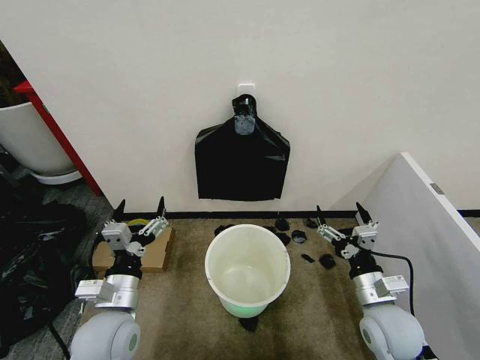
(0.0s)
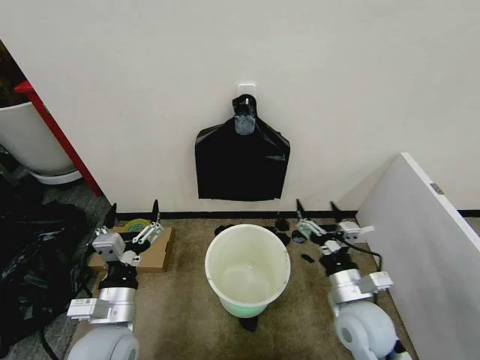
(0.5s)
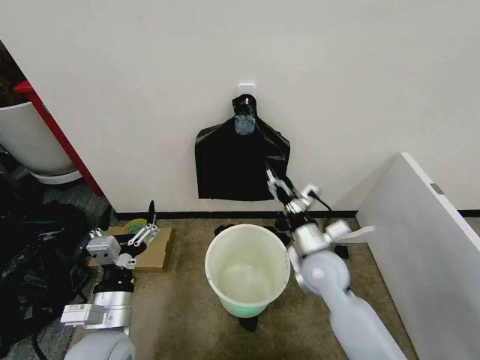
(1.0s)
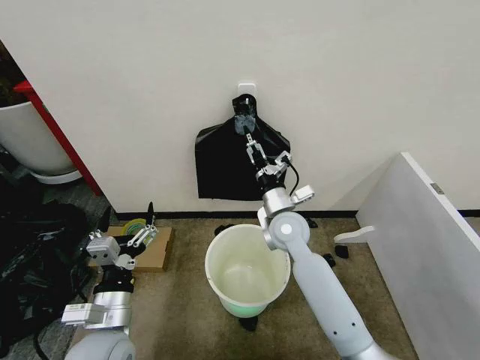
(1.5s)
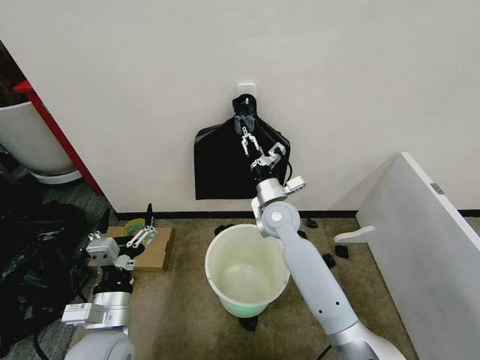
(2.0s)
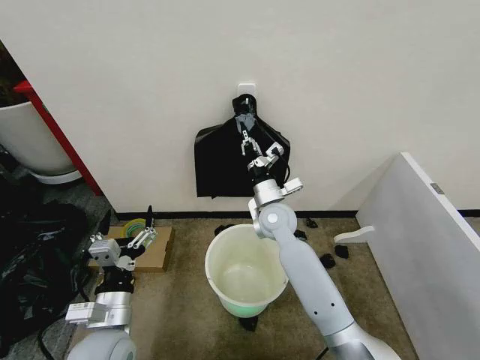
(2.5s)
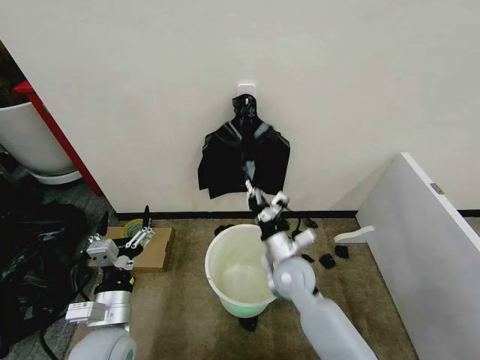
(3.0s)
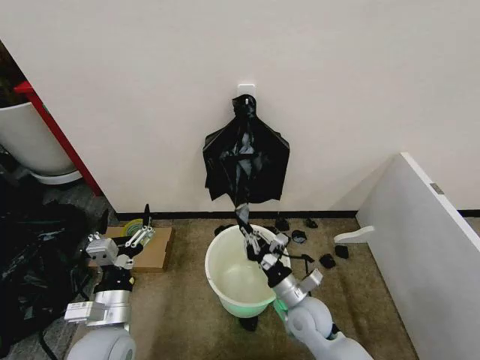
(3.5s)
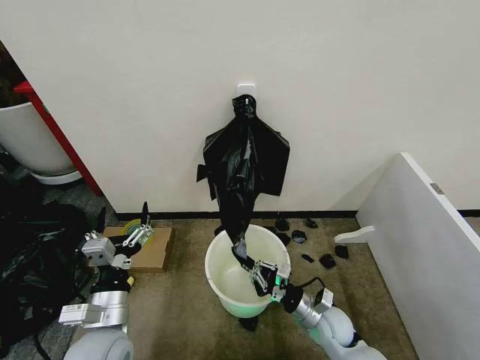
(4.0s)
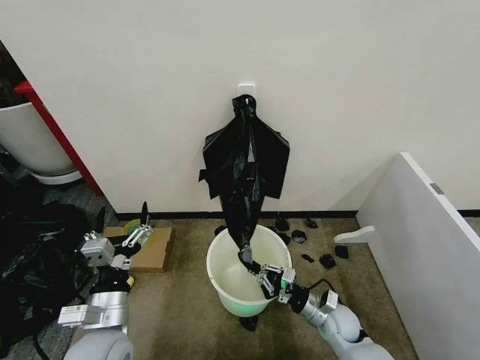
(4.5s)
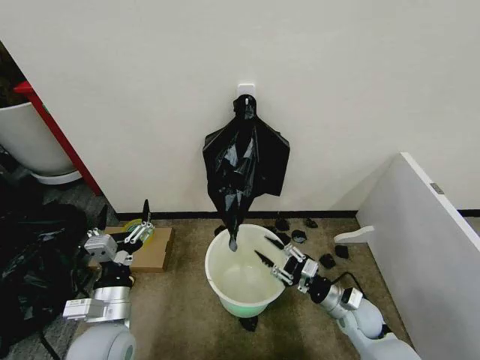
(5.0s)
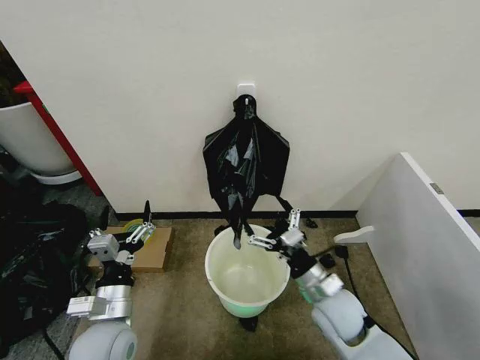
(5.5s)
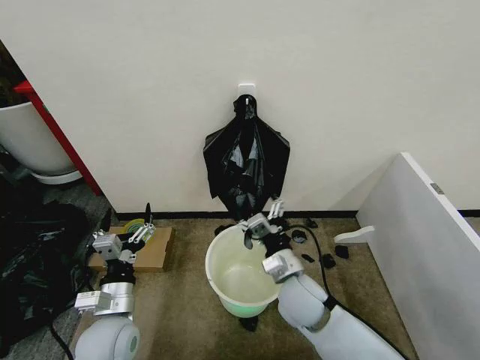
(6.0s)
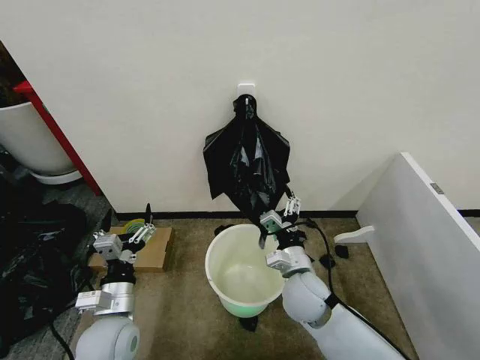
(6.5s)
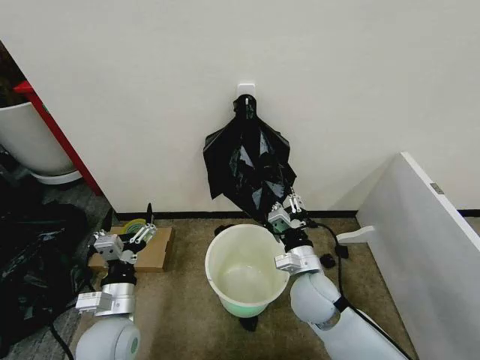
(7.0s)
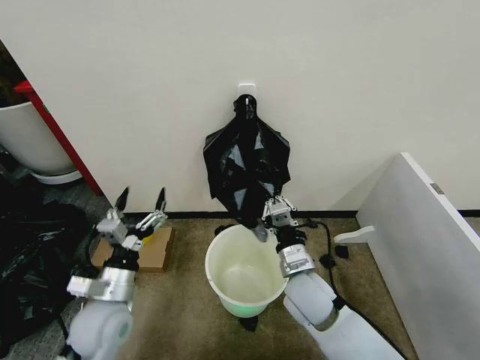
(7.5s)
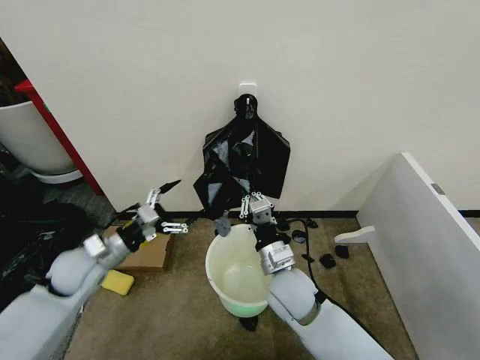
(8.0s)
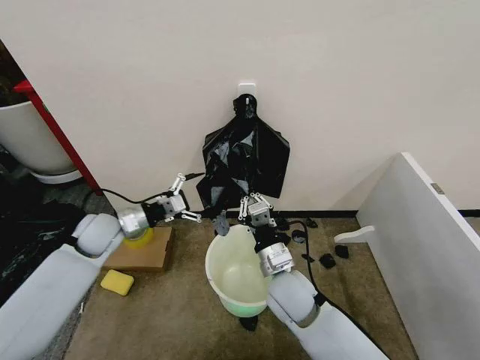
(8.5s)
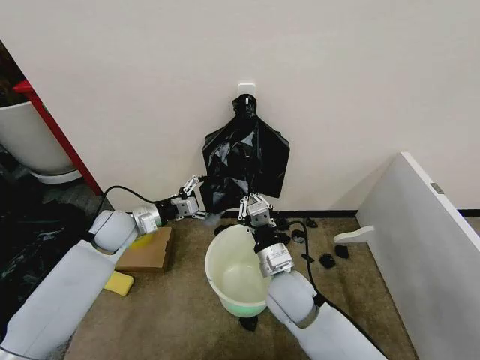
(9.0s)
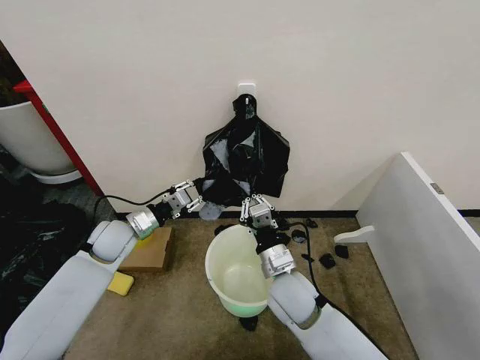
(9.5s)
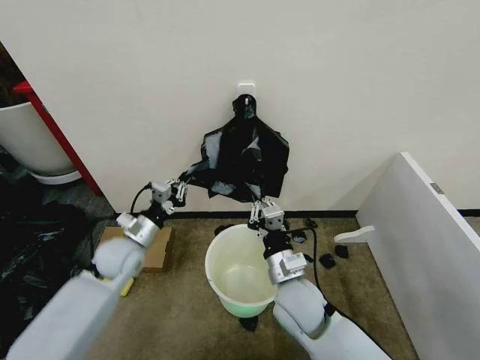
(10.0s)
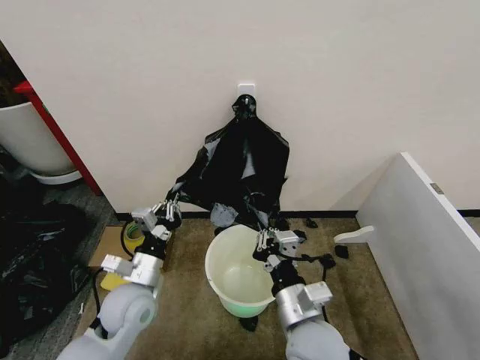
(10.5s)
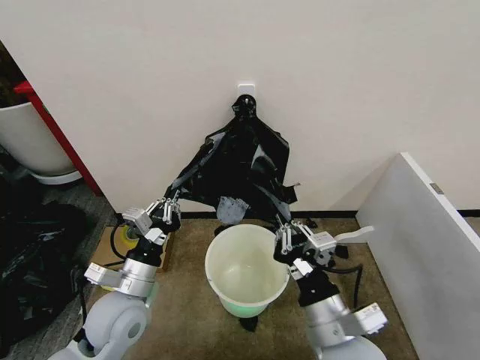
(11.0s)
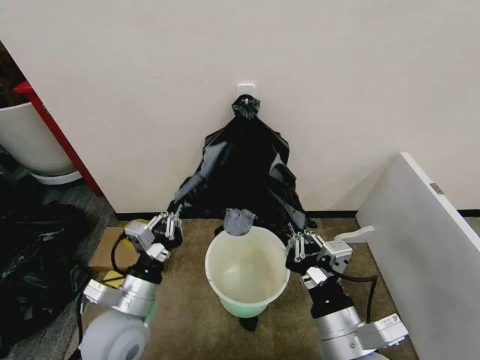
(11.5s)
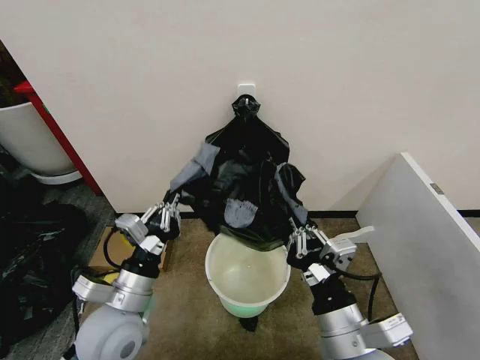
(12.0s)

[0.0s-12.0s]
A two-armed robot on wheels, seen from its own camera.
Task of the whole recording: Place the garbage bag over the trash bin.
2.0s to 4.0s: The right gripper goes some 30 cm downward, backward and to the right, and closes its fingers.
4.0s to 6.0s: The right gripper travels upward and to the left by about 15 cm, and opens up.
6.0s to 8.0s: The right gripper closes its fingers. The left gripper goes some 15 cm forward and to the left.
8.0s to 10.0s: The left gripper heads to the right, covering about 5 cm, and closes up.
10.0s to 12.0s: The right gripper moves backward, upward and to the right, roughly 15 cm. The left gripper shifts about 20 cm backward and to the right.

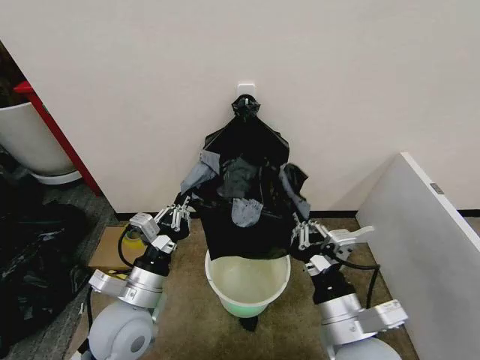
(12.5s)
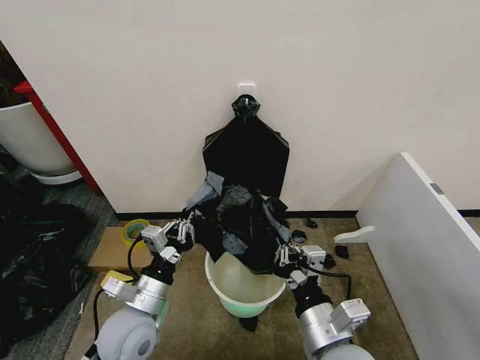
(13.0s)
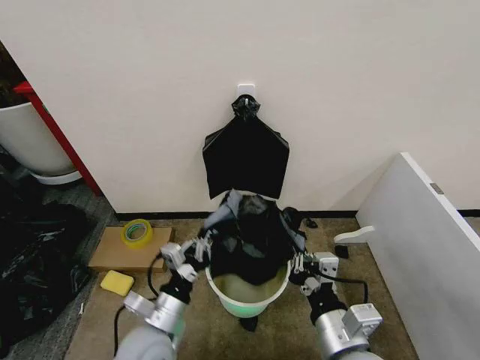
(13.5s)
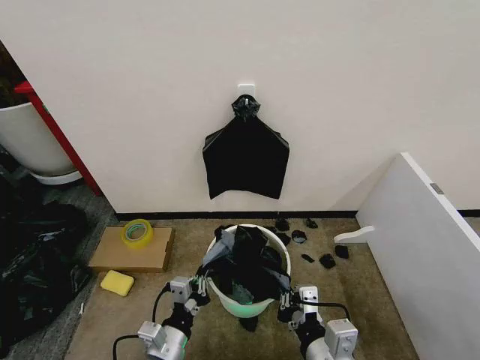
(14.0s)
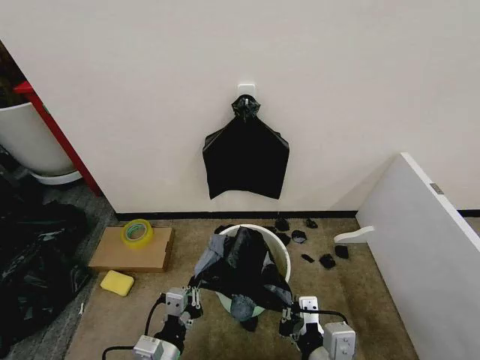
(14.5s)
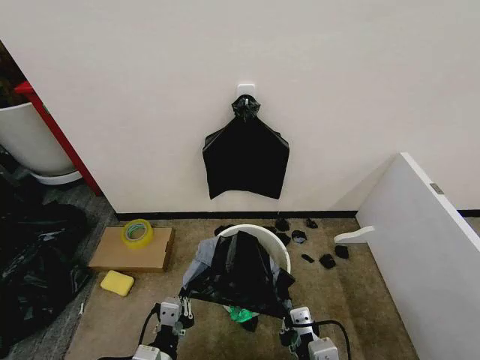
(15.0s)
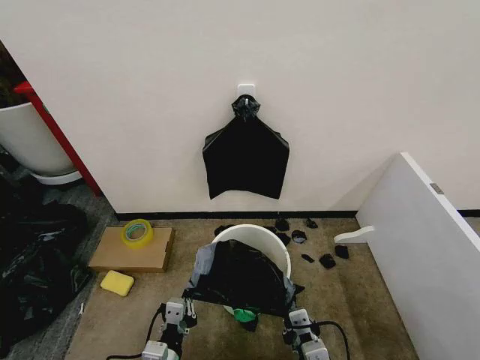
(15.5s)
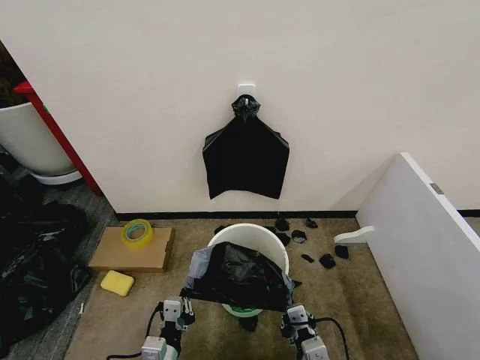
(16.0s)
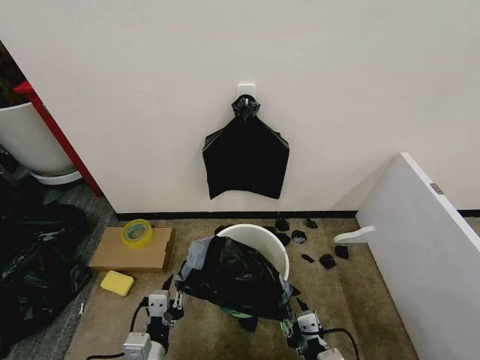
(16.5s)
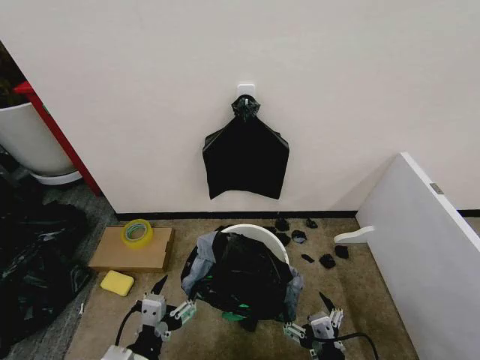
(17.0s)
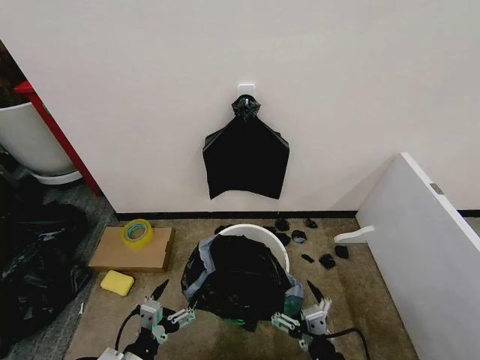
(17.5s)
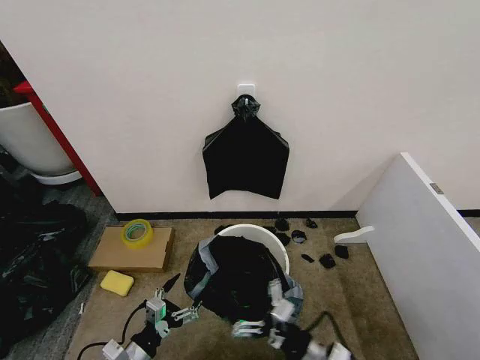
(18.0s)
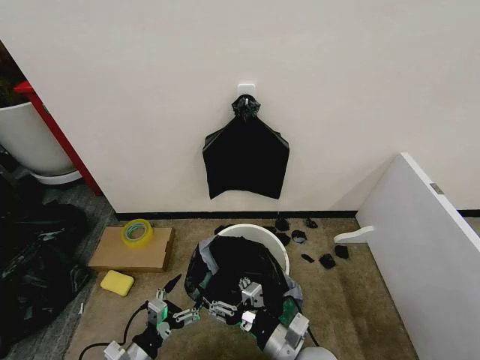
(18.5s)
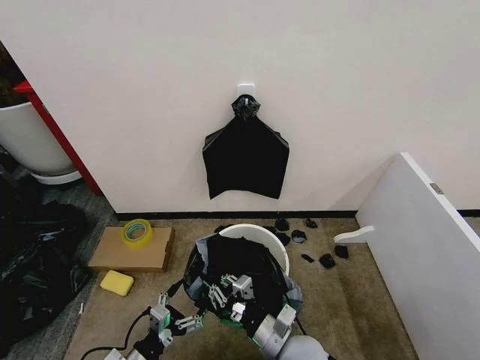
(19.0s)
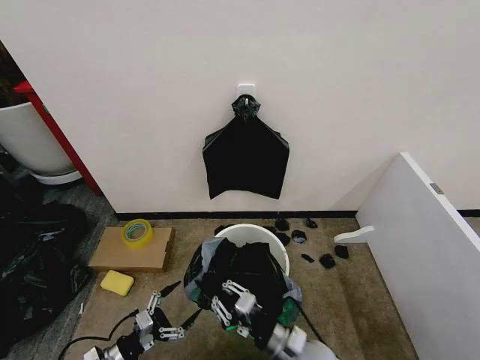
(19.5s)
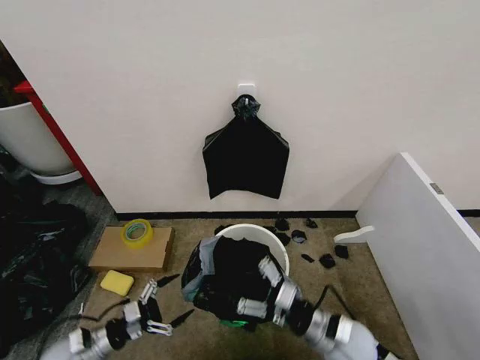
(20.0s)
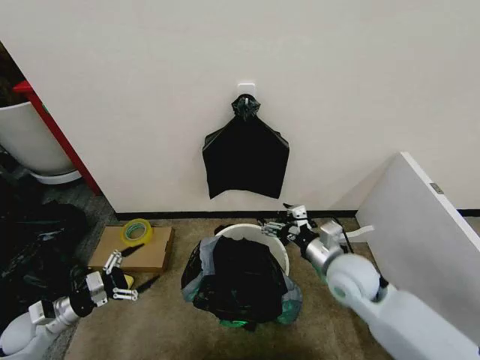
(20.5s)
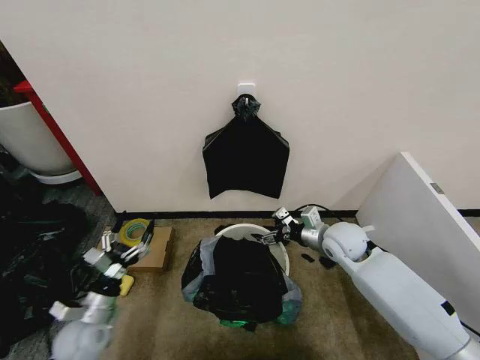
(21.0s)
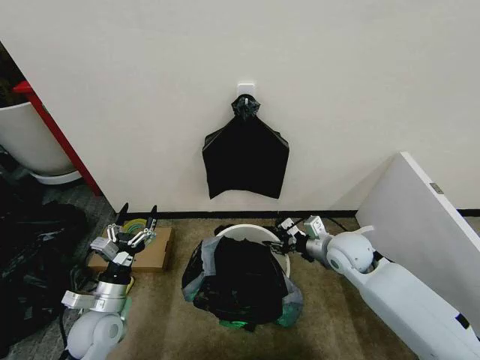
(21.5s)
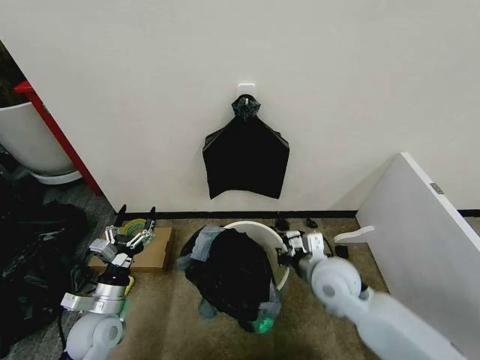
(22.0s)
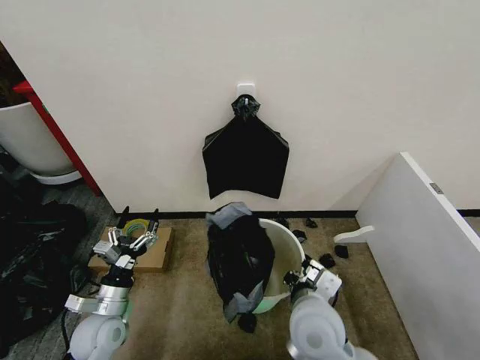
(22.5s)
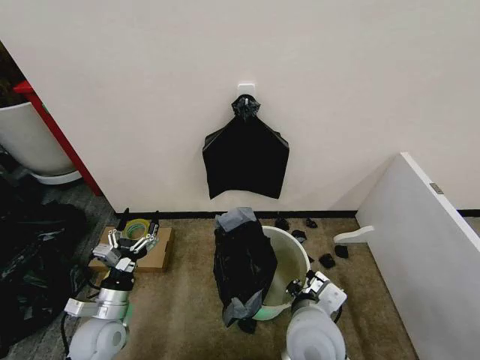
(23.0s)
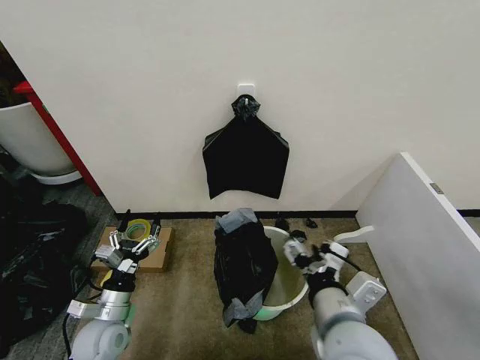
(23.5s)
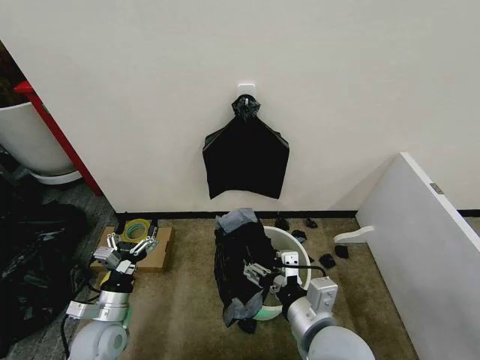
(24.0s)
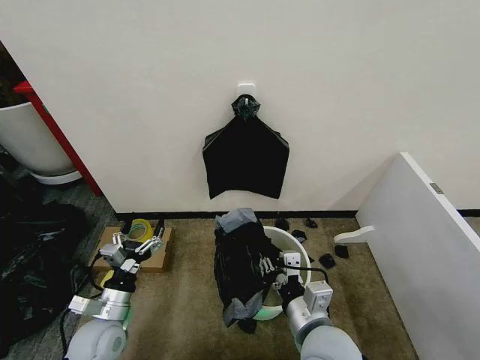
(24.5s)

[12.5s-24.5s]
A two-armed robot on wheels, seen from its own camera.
Task of the whole recording: Place the garbage bag over the trash bin.
12.5s to 14.5s: The left gripper shifts about 15 cm backward and downward; the right gripper shifts by about 5 cm.
14.5s to 16.5s: The right gripper is displaced downward by some 10 cm, and opens.
16.5s to 18.5s: The left gripper shifts roughly 10 cm to the left and downward, and opens its fingers. Meanwhile the right gripper moves forward, about 10 cm.
18.5s to 20.5s: The right gripper is displaced forward, to the right and upward by some 20 cm, and closes, then reopens. Meanwhile the left gripper travels to the left and forward by roughly 25 cm.
20.5s to 22.5s: The right gripper goes roughly 15 cm to the left and backward, and closes, while the left gripper is displaced to the right by roughly 15 cm.
22.5s to 24.5s: The right gripper opens and closes again.

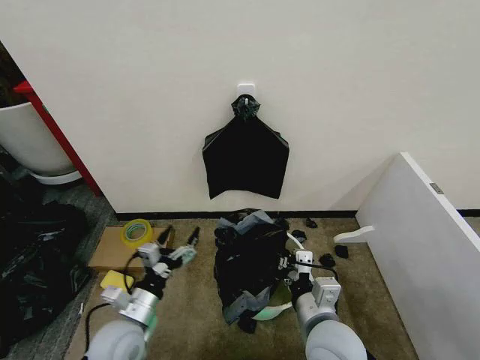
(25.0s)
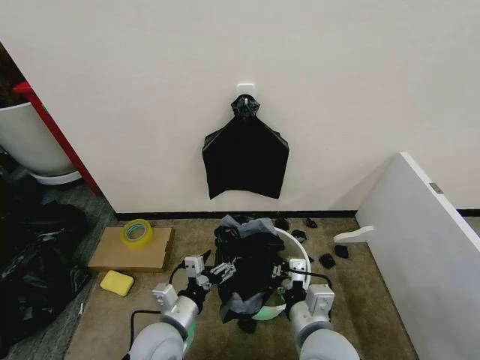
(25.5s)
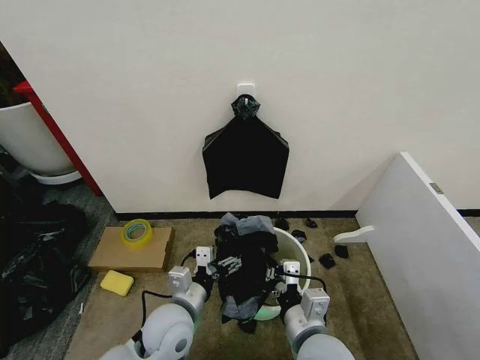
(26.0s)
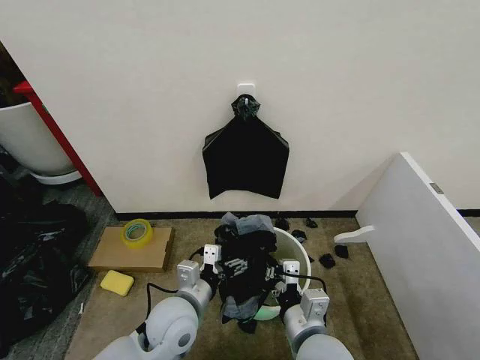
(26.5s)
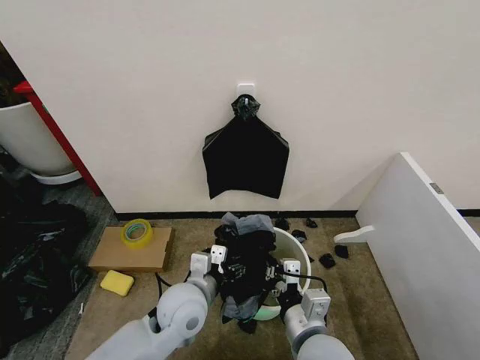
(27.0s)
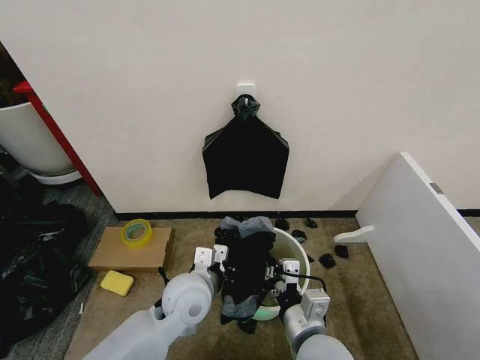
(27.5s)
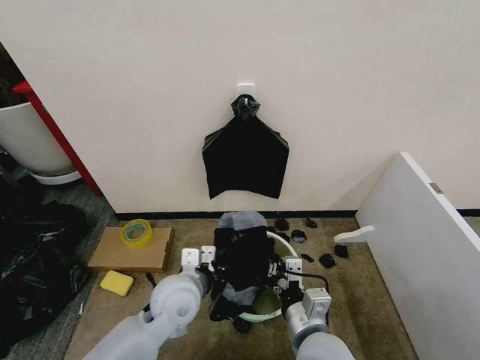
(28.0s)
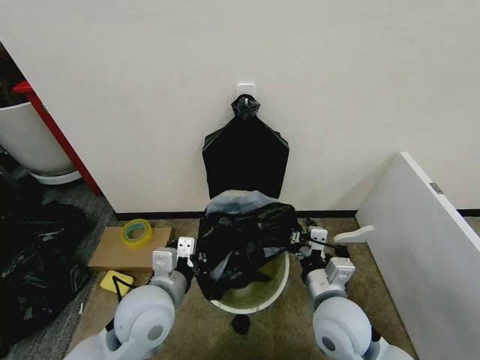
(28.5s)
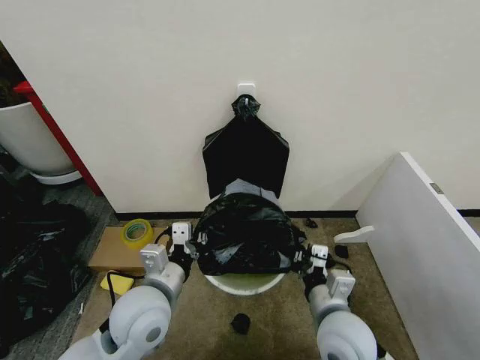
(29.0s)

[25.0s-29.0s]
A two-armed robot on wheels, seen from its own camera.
Task of the whole recording: Place the garbage bag over the trash bin.
25.0s to 27.0s: The left gripper goes some 15 cm to the right and upward.
27.0s to 29.0s: The left gripper goes approximately 10 cm to the left and upward, and closes. Meanwhile the right gripper shifts by about 5 cm.
